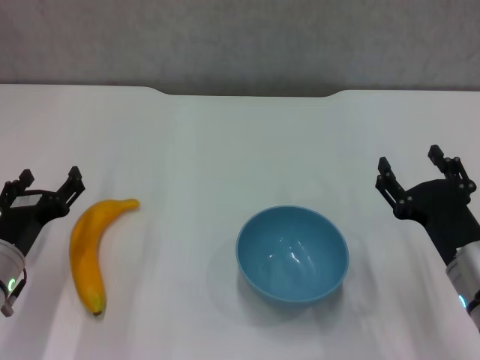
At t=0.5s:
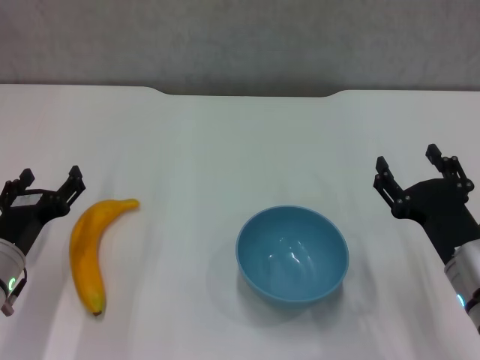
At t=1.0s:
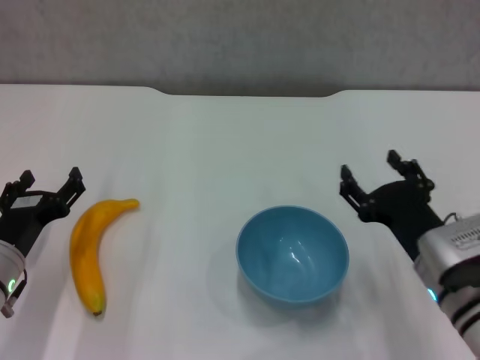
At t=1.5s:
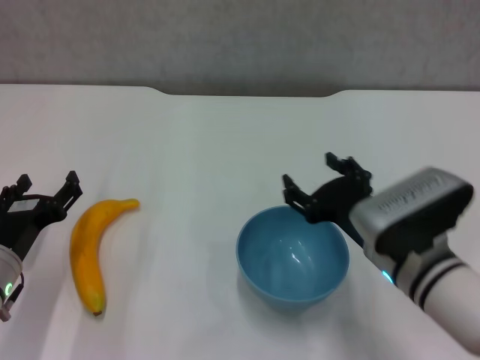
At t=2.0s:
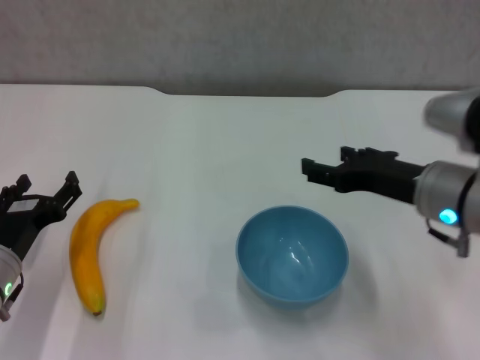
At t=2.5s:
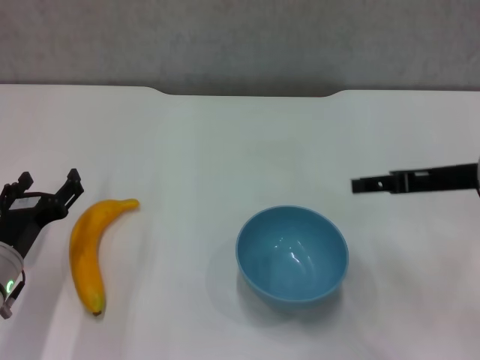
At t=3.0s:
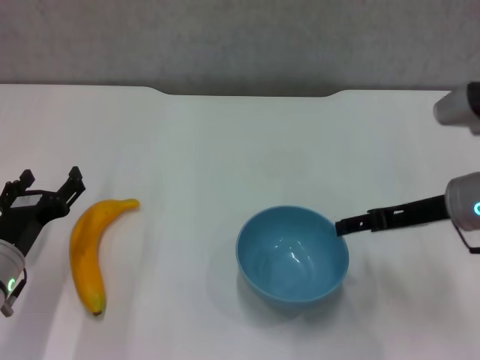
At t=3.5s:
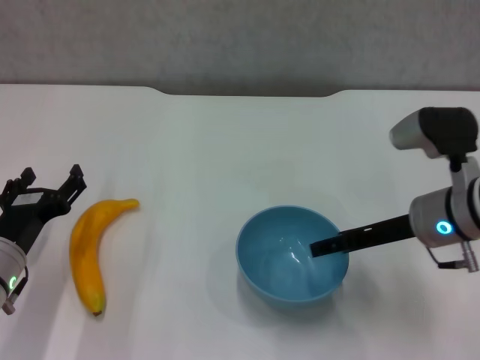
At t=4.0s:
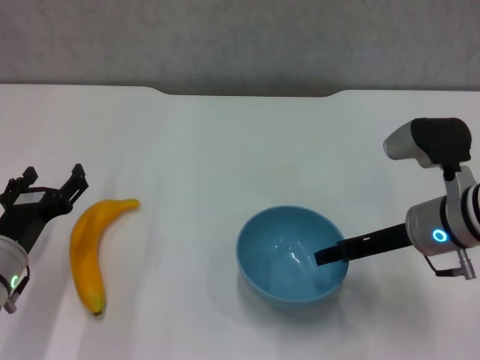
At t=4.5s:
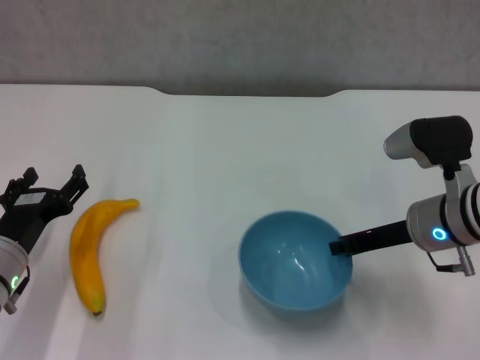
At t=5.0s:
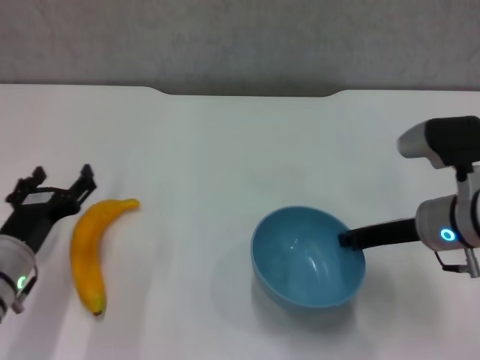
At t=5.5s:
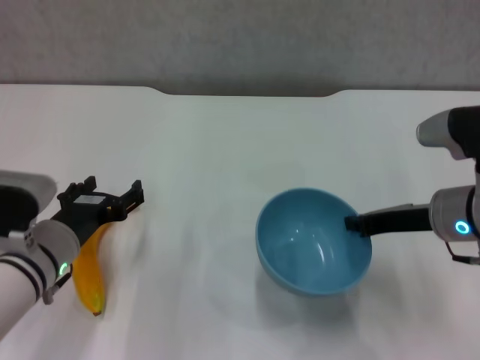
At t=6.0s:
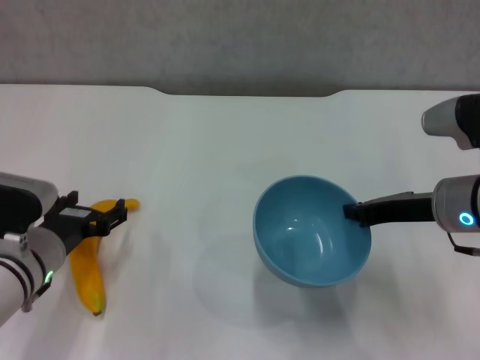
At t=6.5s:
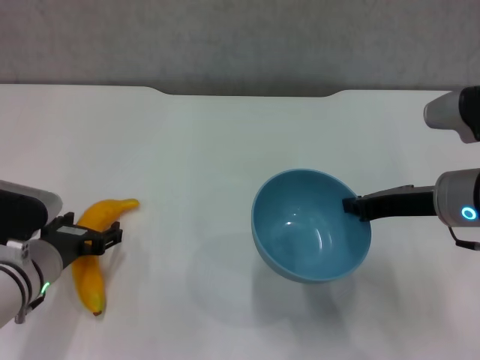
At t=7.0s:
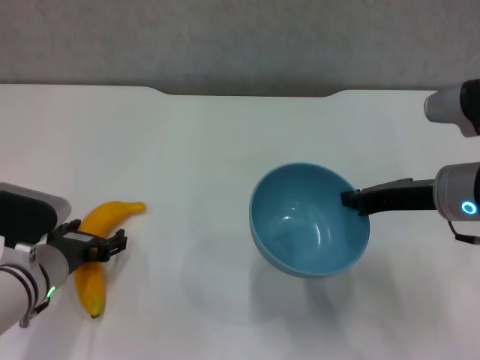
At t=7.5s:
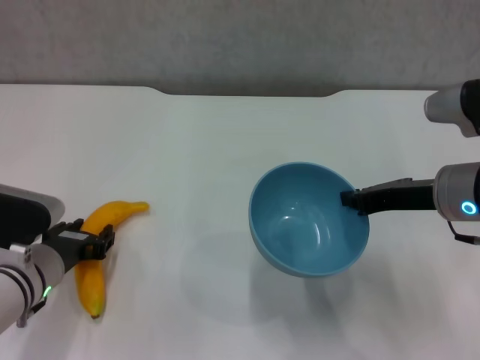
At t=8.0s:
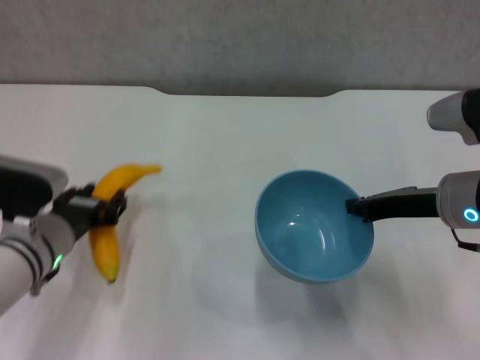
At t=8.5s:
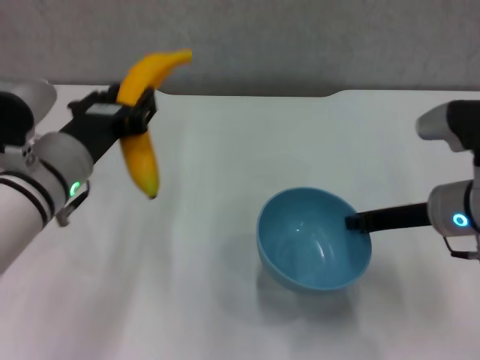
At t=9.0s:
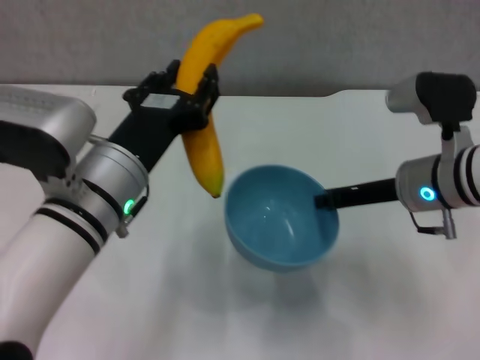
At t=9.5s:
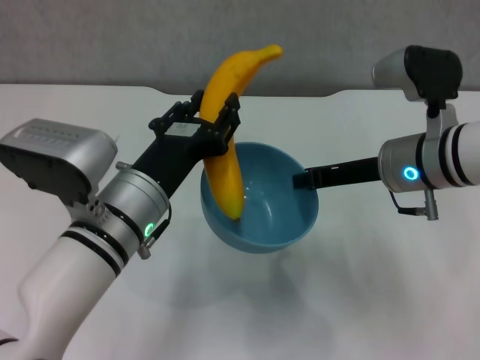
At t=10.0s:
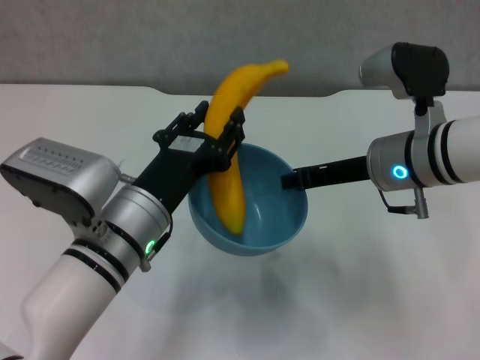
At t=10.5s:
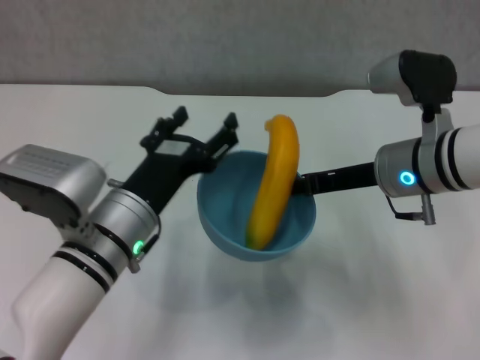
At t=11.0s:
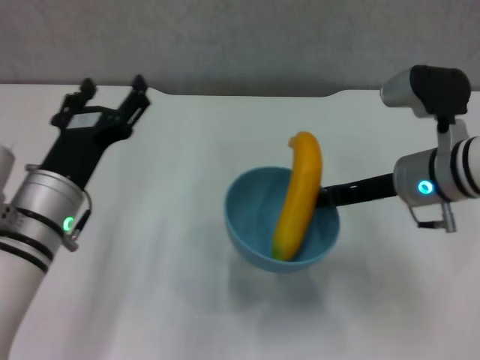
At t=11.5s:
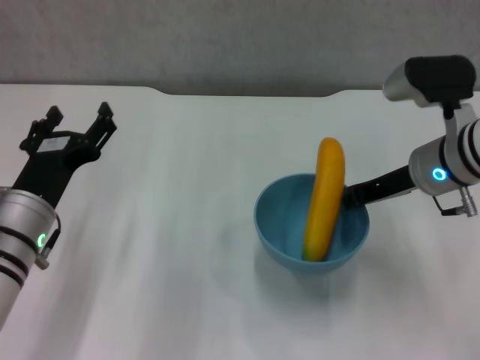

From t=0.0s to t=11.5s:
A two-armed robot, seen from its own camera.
Step, from t=0.0s to t=4.5s: Grasp the blue bowl with right gripper.
Step, from t=5.0s to t=5.5s: Lift the blue bowl with right gripper.
Step, from t=6.0s to t=7.0s: Grasp the banana with left gripper.
Step, from t=7.5s to t=10.0s: Place the banana in the blue bowl with left gripper.
From t=0.0s to t=2.0s: The right gripper travels upward and forward by about 10 cm.
From t=2.0s to t=4.0s: The right gripper ends up about 5 cm from where it was.
From t=4.0s to t=6.0s: The right gripper closes its fingers.
From t=6.0s to t=7.5s: The left gripper closes up.
From t=7.5s to t=9.5s: The left gripper goes some 15 cm to the right and upward; the right gripper moves roughly 5 cm.
From t=9.5s to t=11.5s: The left gripper shifts about 10 cm to the left, and opens.

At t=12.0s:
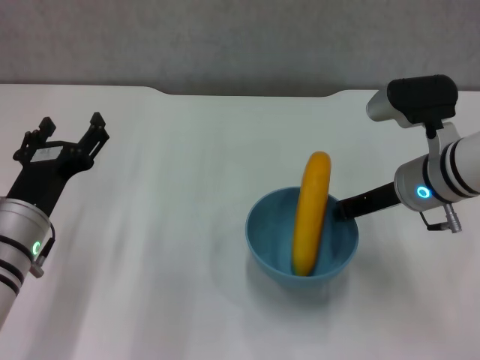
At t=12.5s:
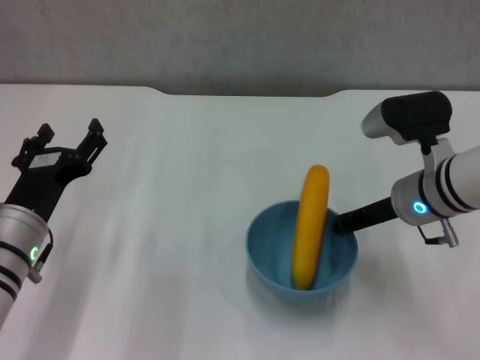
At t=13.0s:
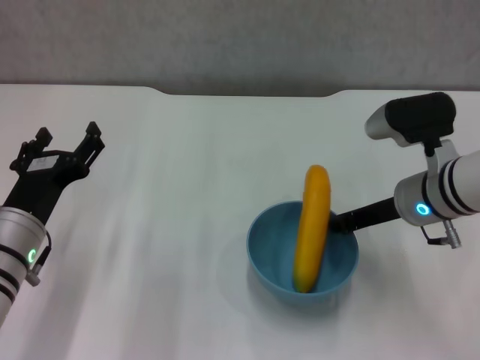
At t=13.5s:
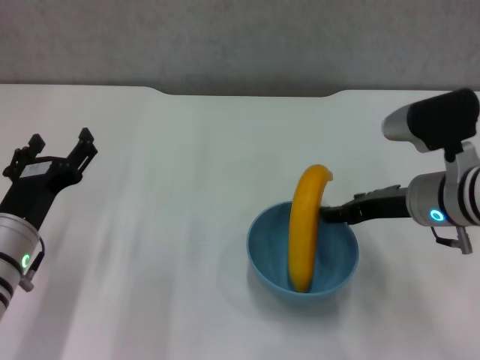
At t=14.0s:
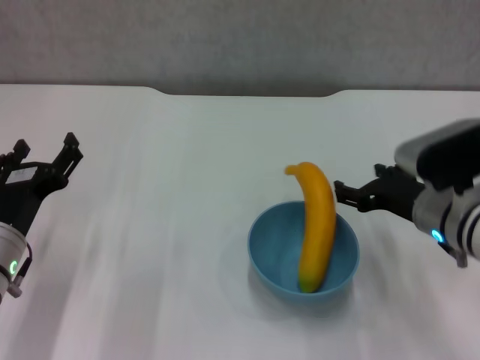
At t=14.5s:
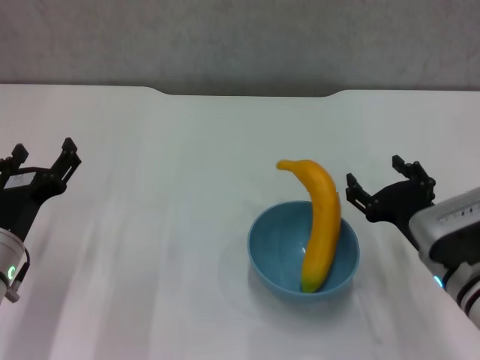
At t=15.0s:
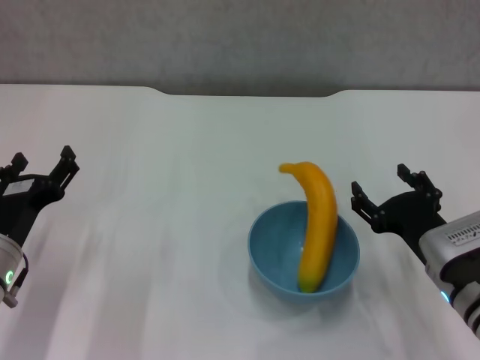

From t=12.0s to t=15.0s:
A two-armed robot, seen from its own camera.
From t=12.0s to t=13.5s: The right gripper opens its fingers.
From t=13.5s to t=15.0s: The right gripper goes about 10 cm downward and backward.
